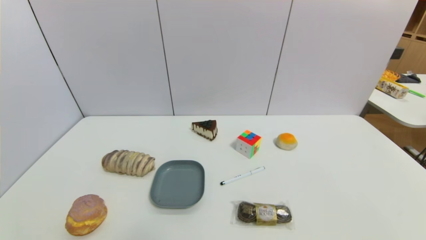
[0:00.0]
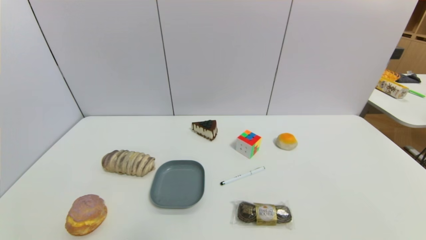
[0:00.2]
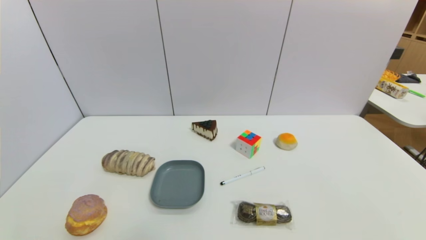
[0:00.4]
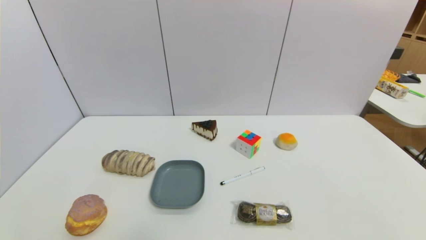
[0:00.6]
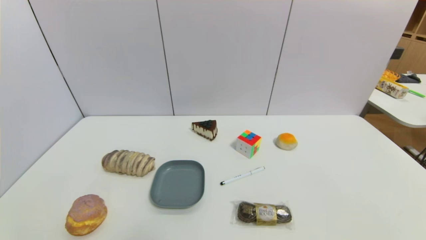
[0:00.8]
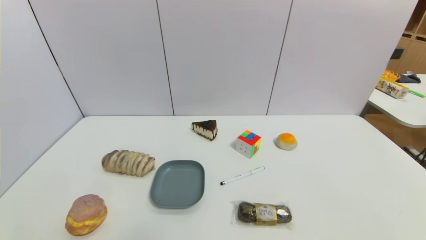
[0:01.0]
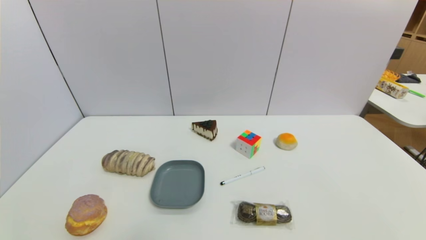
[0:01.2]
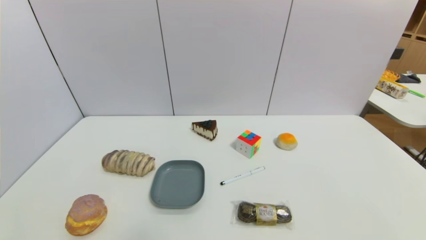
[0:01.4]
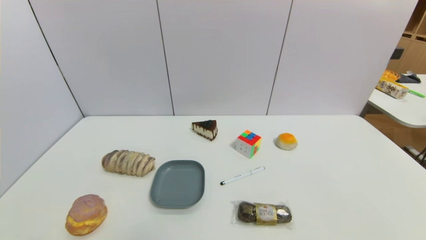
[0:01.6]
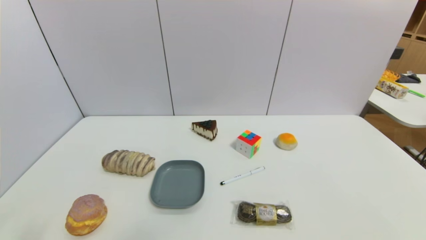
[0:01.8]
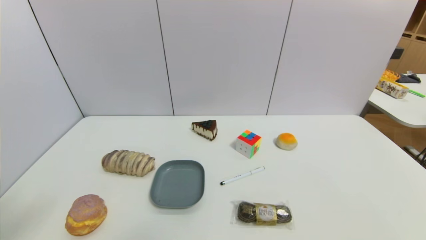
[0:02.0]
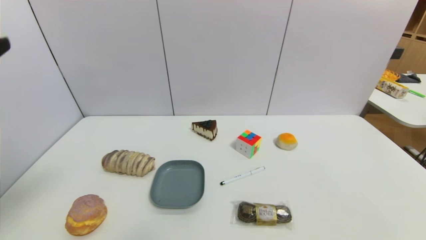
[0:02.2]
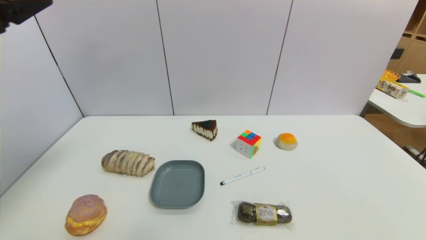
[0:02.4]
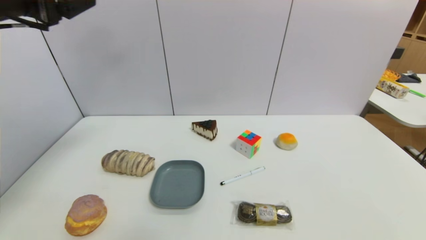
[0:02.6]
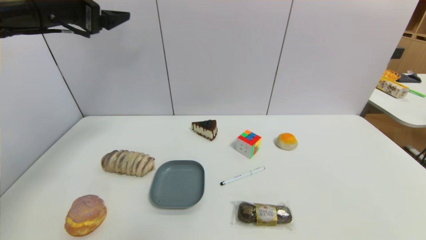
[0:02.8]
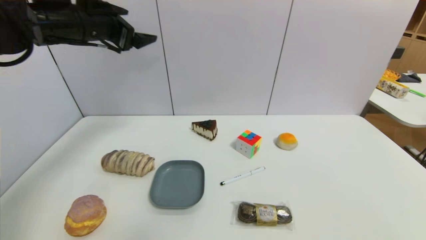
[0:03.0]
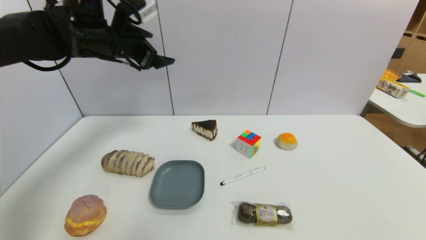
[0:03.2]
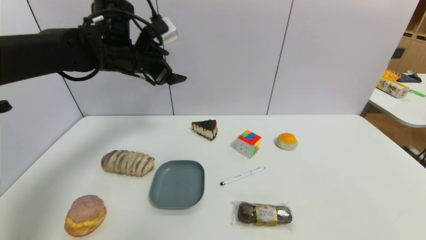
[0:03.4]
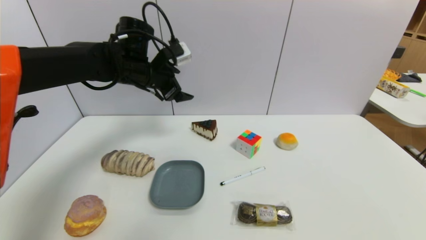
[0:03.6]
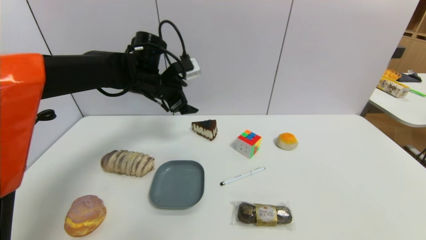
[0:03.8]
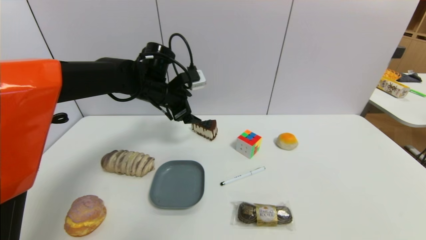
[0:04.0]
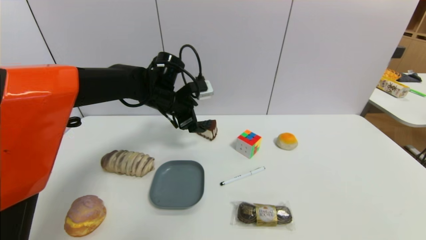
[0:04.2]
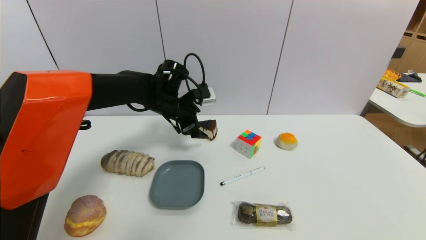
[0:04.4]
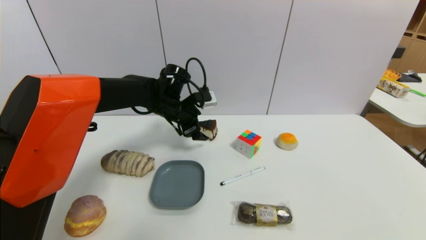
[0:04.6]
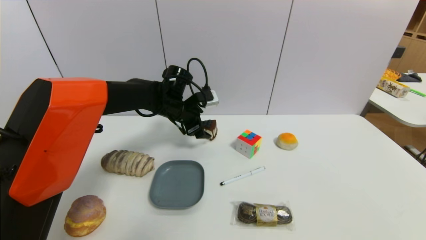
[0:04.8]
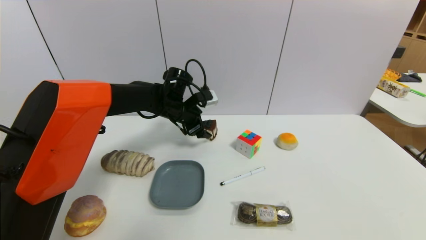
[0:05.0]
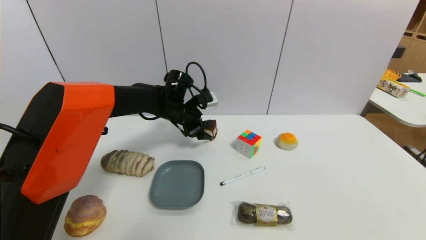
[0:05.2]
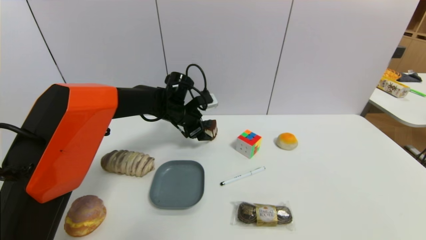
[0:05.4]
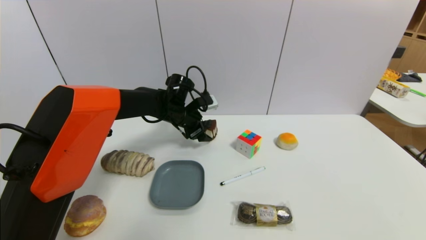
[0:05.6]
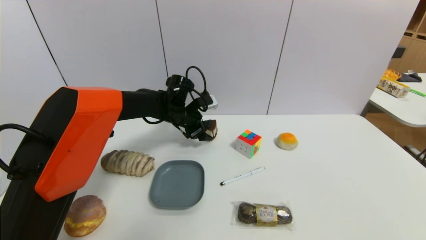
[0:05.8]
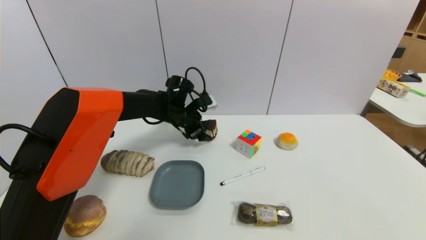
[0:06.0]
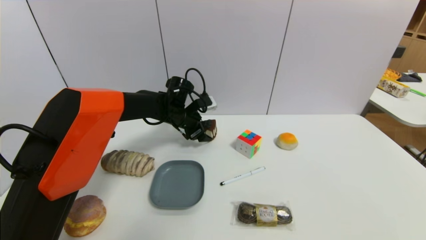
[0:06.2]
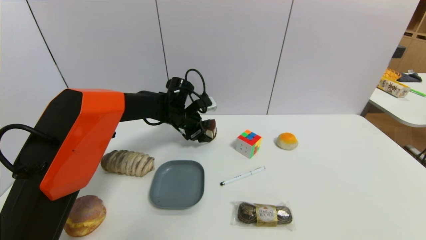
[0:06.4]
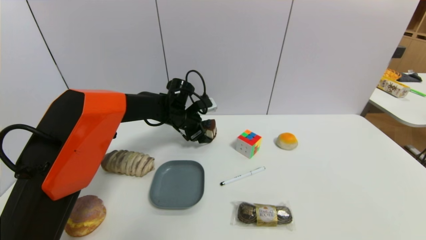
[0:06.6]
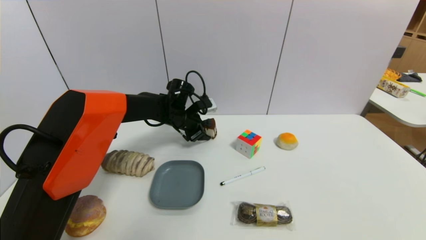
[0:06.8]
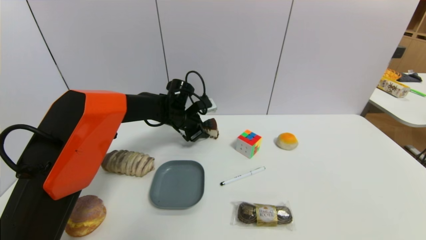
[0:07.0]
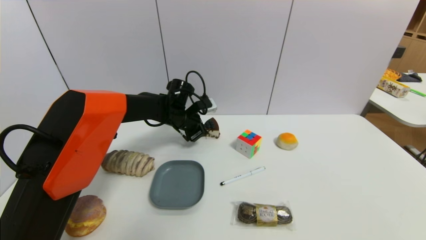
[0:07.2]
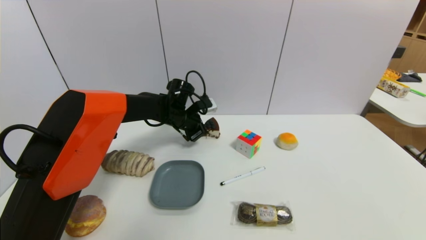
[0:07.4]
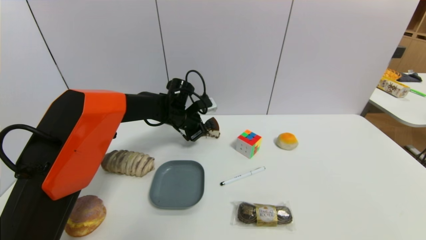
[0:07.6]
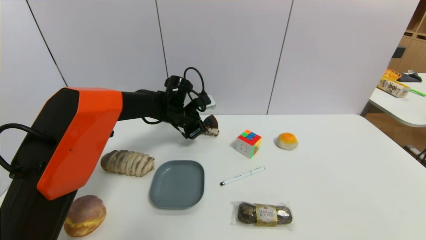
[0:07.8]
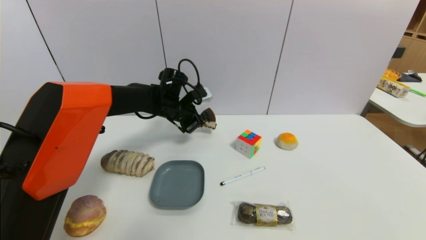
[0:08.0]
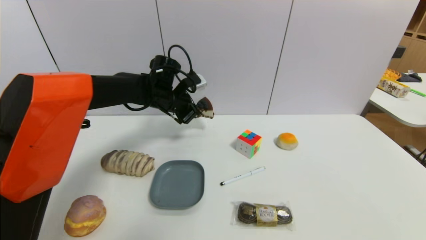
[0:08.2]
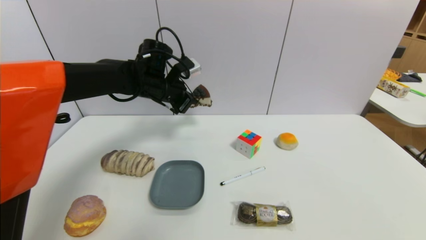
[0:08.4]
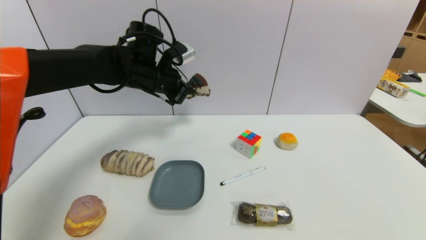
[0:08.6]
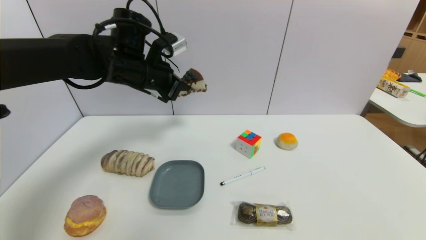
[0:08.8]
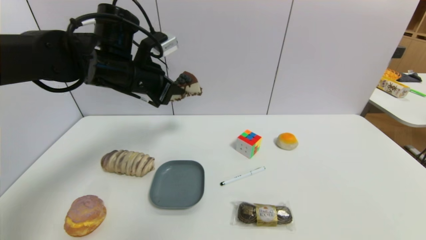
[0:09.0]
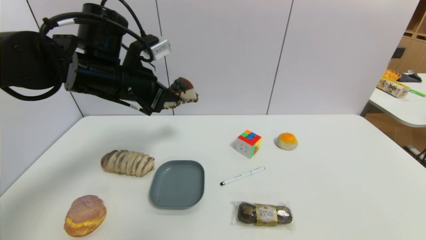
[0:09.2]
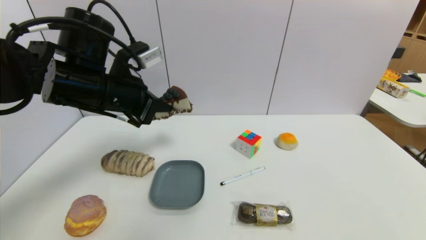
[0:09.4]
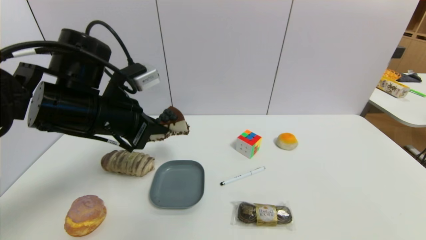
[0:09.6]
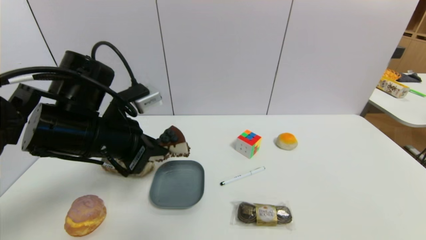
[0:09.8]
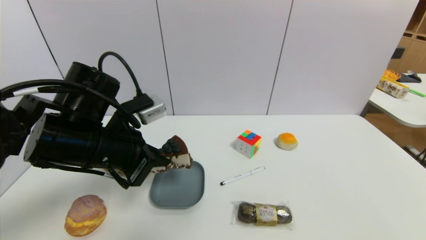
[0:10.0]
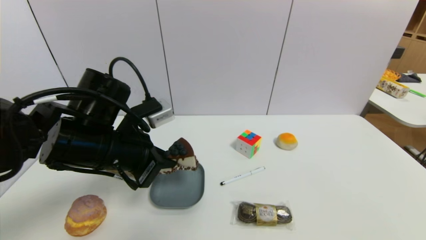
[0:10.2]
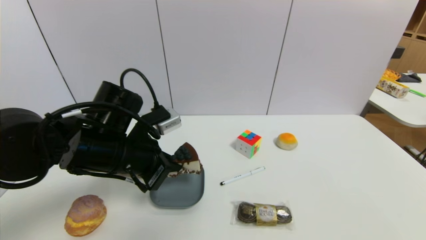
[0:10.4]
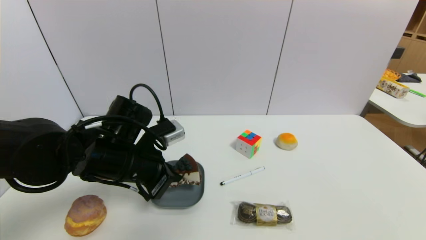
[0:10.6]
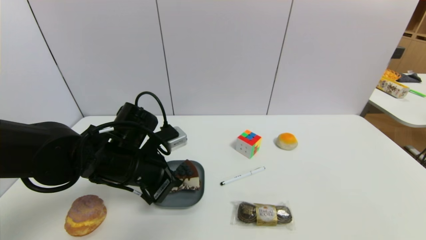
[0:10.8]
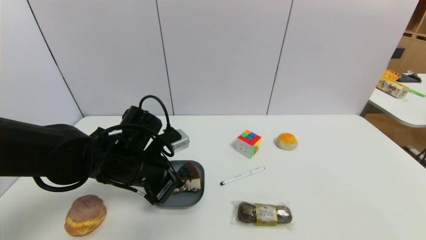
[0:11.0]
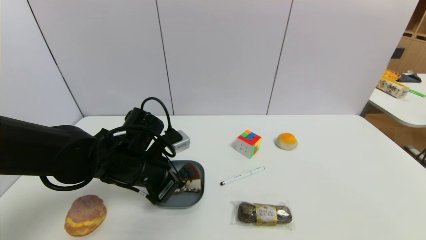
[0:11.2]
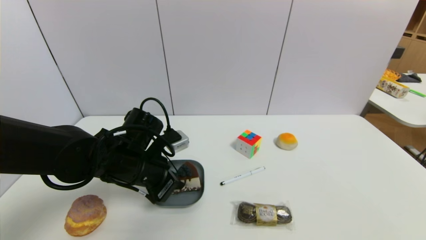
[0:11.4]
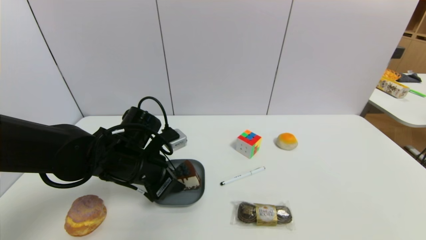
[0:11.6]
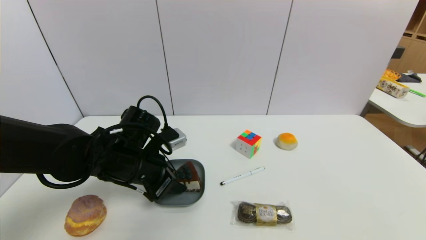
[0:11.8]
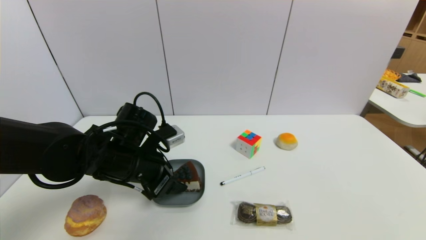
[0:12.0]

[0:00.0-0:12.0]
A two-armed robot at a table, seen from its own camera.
Task of the whole recording: use a gripper to pick the target object and place on the dish.
Step, 0:00.0 to 0:07.4: Grasp the chocolate cake with the left gripper.
0:01.6 to 0:03.0: The left gripper heads forward and upward, covering about 40 cm.
0:03.0 to 0:04.4: The left gripper moves downward and to the right, roughly 20 cm.
0:04.4 to 0:06.0: The left gripper shifts by roughly 5 cm.
0:06.0 to 0:07.6: The left gripper closes.
0:07.6 to 0:09.0: The left gripper travels upward, backward and to the left by some 20 cm.
0:09.0 to 0:10.4: The left gripper goes some 15 cm downward and backward.
0:10.4 to 0:12.0: The left gripper opens.

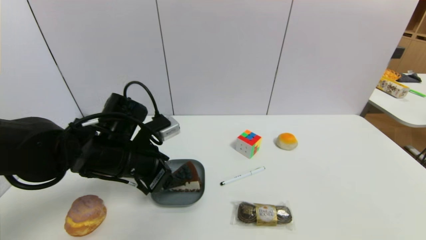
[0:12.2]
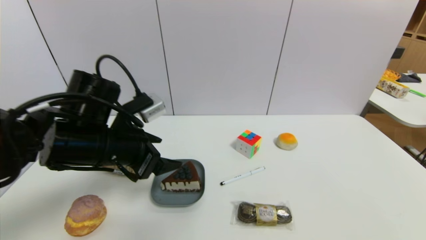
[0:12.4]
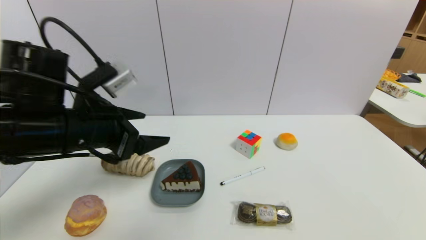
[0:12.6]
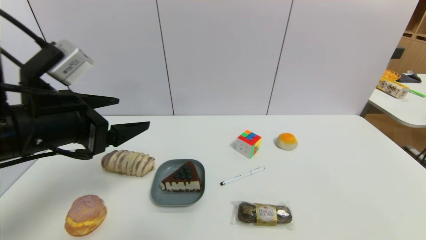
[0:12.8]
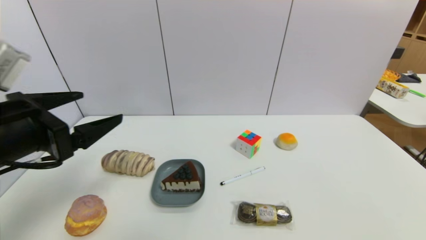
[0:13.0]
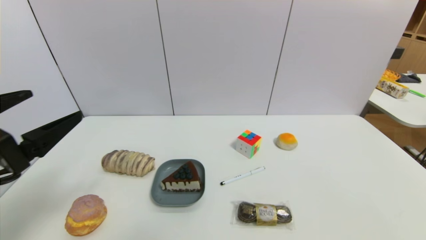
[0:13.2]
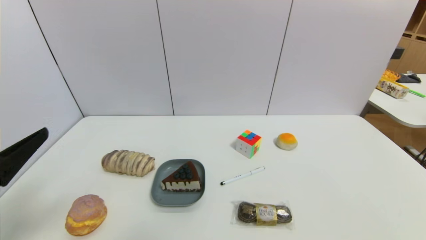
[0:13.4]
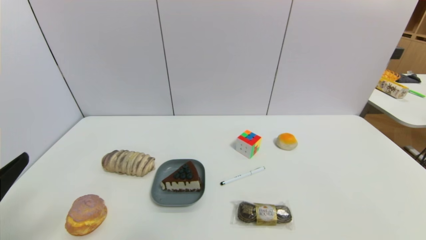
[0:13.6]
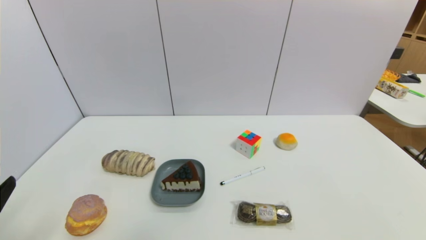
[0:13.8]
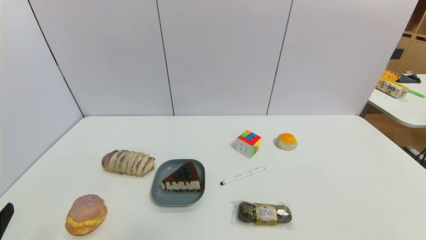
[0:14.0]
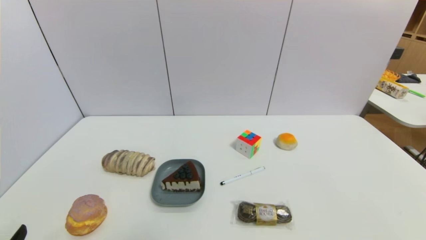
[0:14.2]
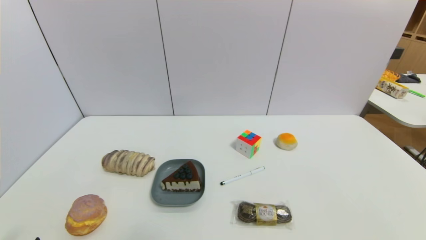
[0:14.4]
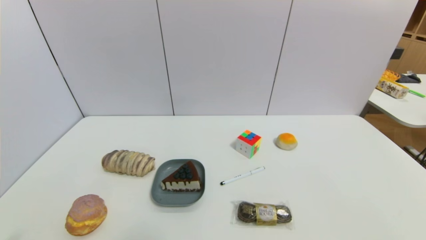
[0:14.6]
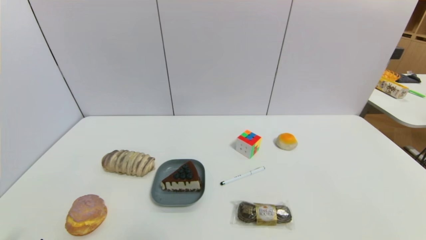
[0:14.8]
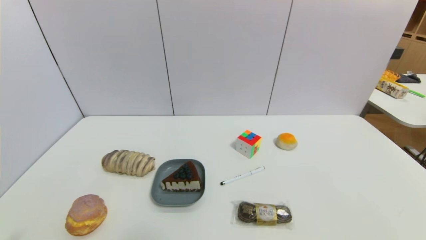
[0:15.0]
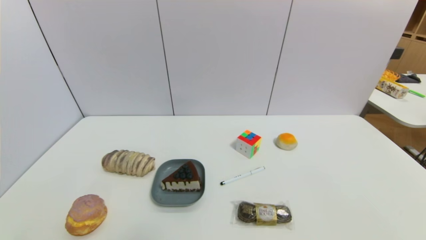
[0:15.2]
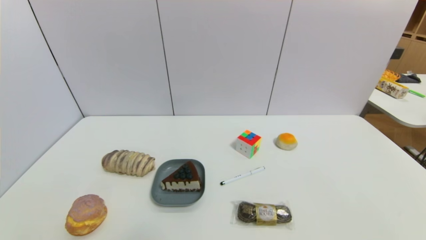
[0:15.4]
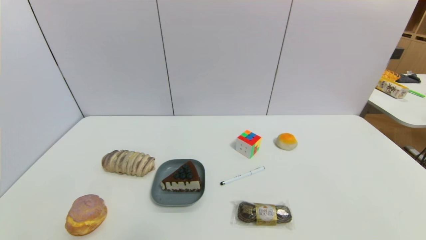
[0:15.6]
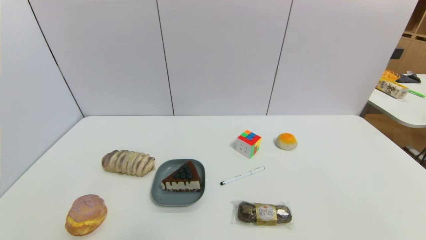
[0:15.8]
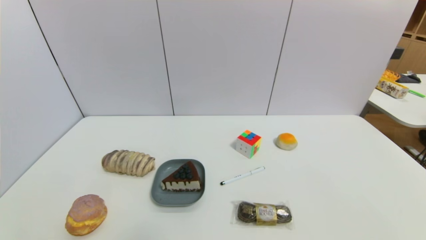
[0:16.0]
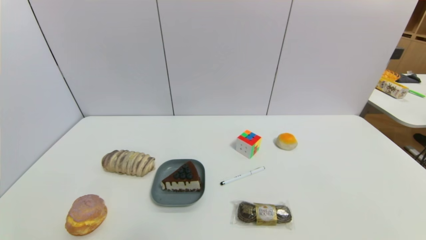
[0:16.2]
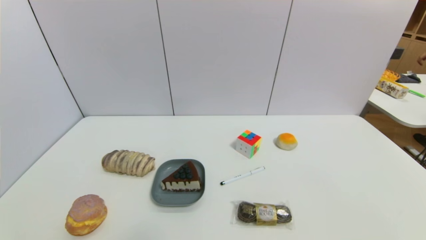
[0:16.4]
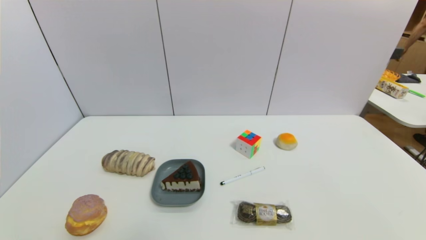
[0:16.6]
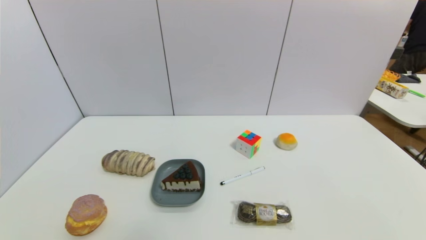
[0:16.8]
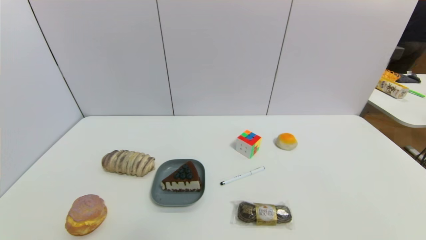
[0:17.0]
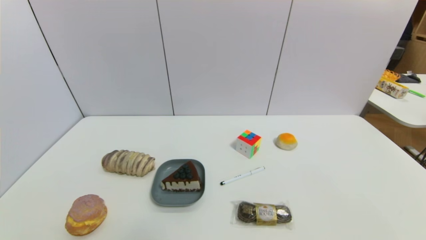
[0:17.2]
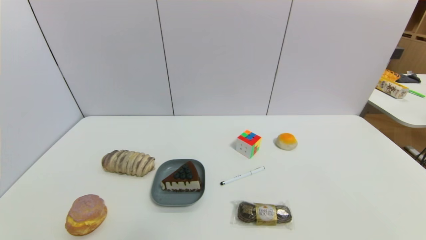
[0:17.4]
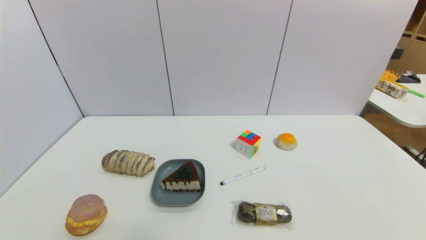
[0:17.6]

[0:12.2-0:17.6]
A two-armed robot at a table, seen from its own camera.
Task of the whole recording: use a gripper to pick the target object and place on the dish.
0:12.2 to 0:13.6: The left gripper travels backward and to the left by about 25 cm.
0:13.6 to 0:15.0: The left gripper shifts about 15 cm downward.
0:16.2 to 0:17.6: Neither gripper changes place.
